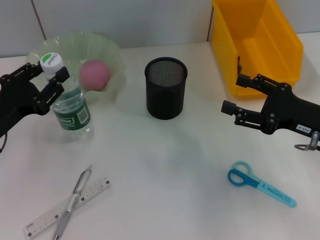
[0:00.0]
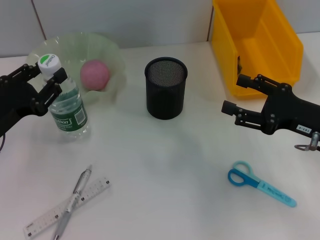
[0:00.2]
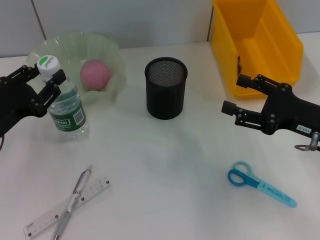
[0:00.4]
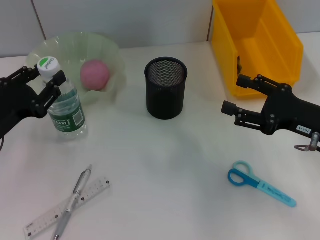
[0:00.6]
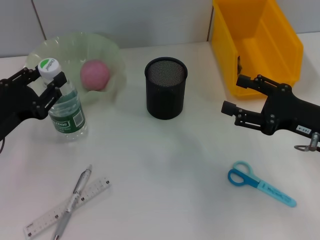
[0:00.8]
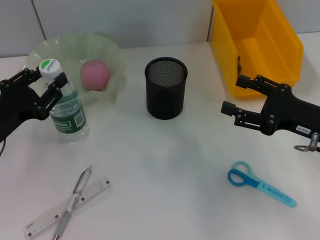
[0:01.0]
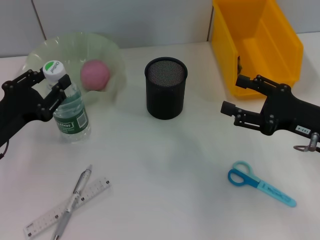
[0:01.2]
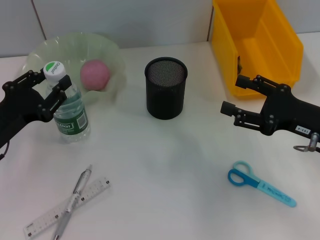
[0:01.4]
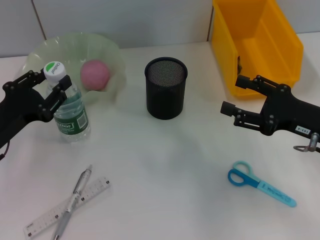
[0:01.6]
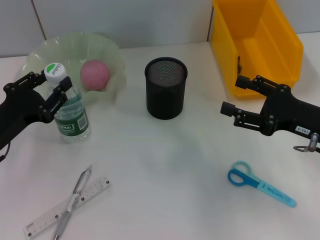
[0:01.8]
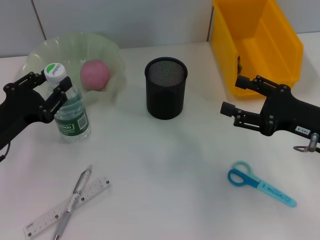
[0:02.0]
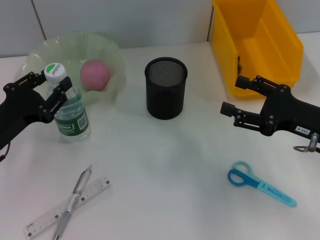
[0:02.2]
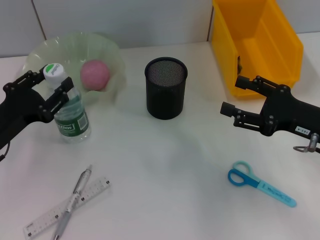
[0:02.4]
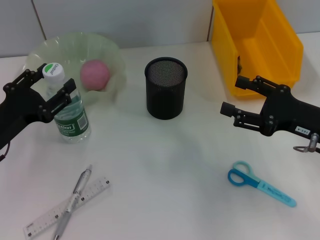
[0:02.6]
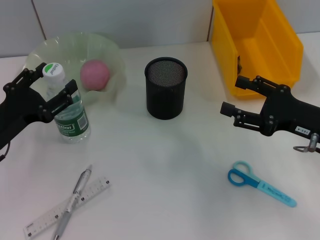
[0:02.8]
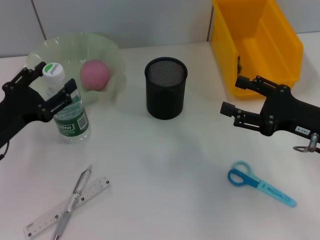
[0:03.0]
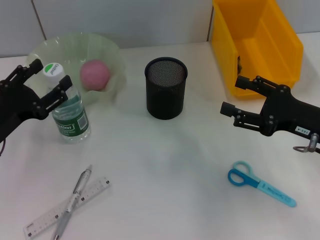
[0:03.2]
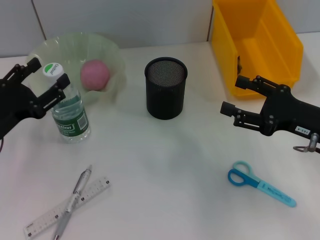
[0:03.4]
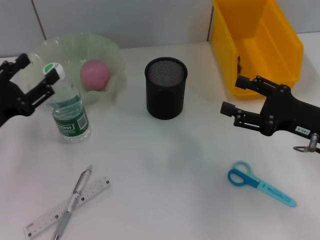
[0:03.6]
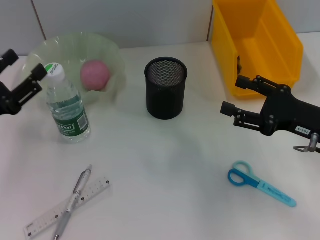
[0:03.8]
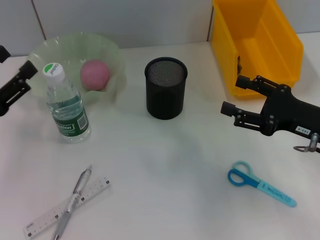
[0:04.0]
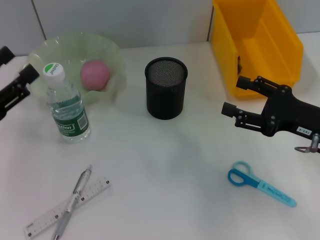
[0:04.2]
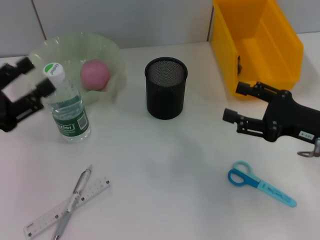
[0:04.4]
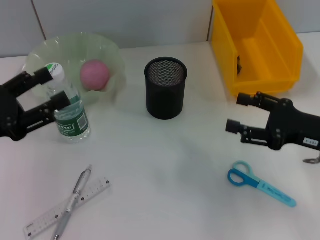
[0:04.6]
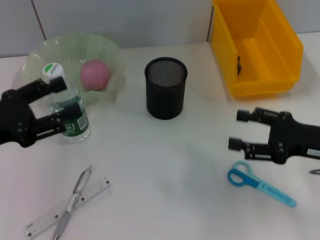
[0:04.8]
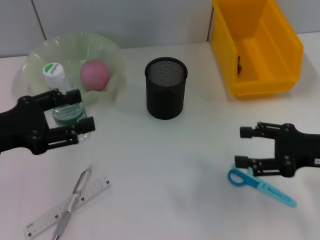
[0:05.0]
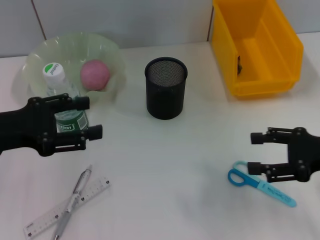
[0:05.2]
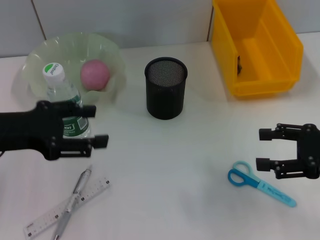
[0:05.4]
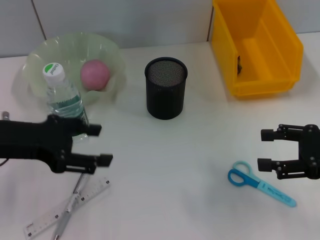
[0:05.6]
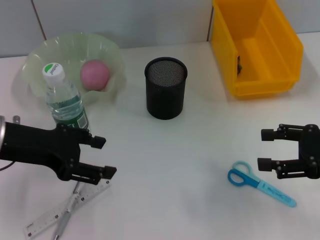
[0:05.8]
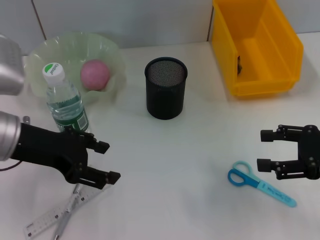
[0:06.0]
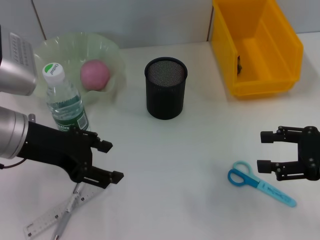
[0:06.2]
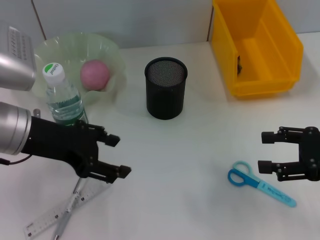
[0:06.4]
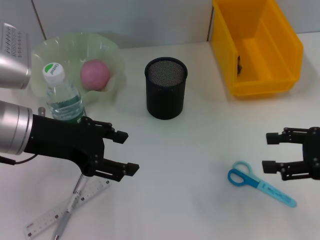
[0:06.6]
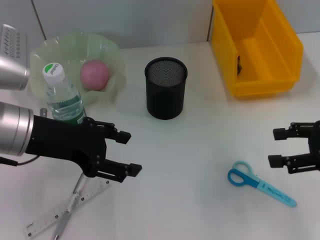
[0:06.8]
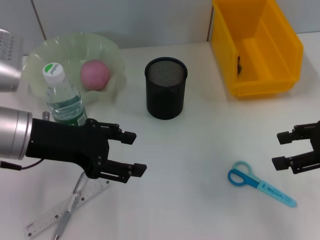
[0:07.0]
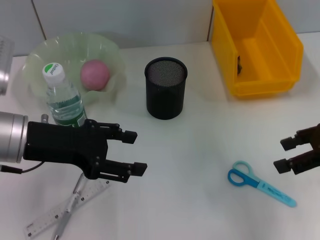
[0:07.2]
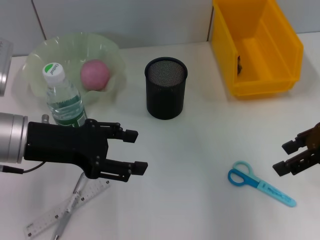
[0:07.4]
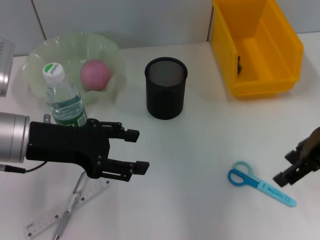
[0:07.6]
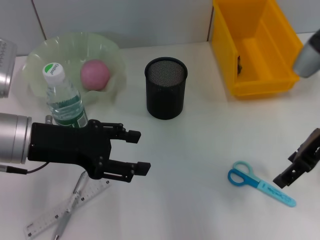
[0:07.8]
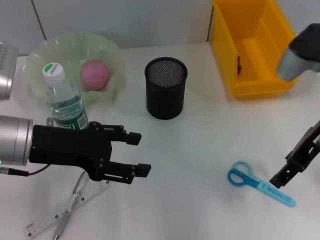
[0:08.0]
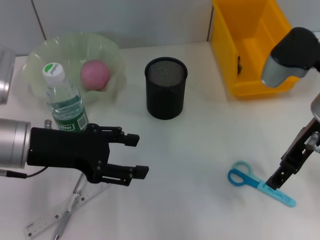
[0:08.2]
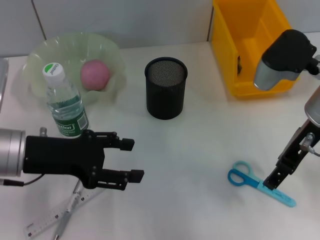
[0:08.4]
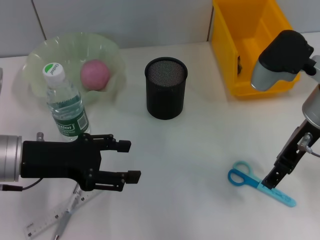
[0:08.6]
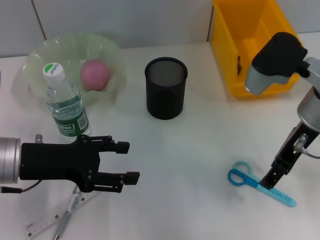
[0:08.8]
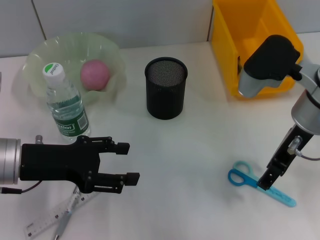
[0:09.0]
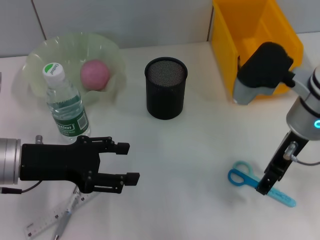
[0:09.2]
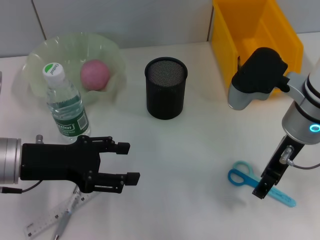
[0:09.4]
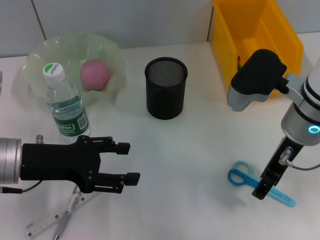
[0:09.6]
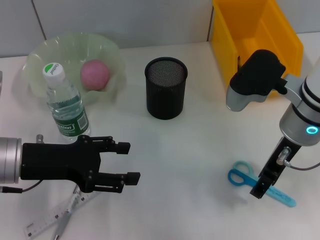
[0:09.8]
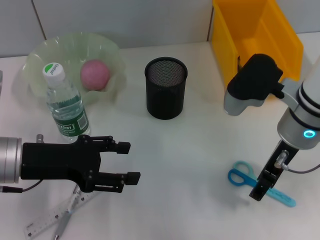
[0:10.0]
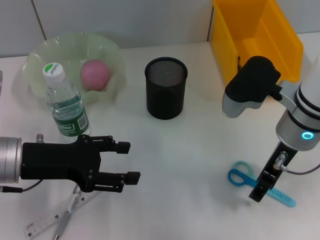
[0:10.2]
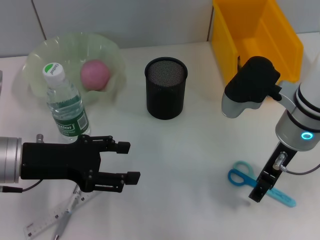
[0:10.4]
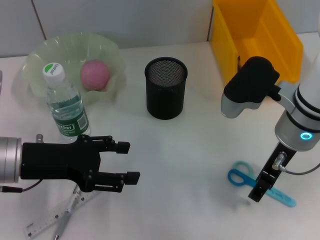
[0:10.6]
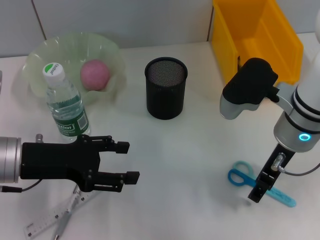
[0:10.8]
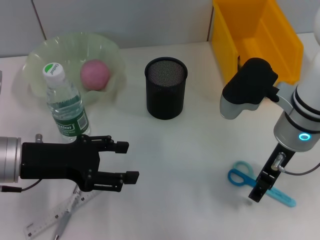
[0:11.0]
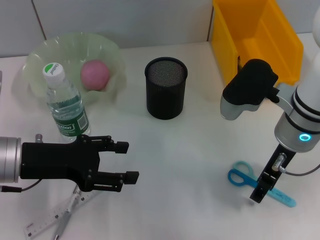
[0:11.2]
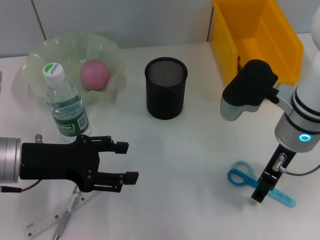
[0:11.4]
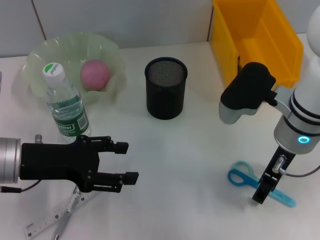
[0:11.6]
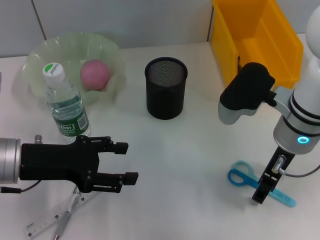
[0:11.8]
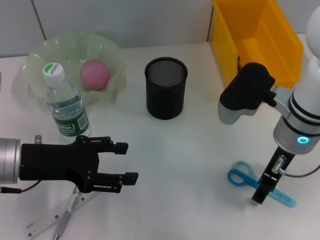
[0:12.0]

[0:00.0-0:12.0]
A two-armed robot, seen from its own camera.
Step, 0:00.0 to 0:03.2: Place the water bottle on the table with the left hand.
0:00.0 to 0:01.6: Both grippers stay about where they are.
0:01.6 to 0:03.0: The left gripper opens up.
0:03.0 to 0:04.4: The left gripper changes place by about 5 cm.
0:04.4 to 0:06.0: The left gripper heads to the right and upward, covering approximately 10 cm. The right gripper ends up approximately 5 cm from where it was.
0:06.0 to 0:07.6: The right gripper goes about 10 cm upward, forward and to the left.
0:07.6 to 0:09.0: The right gripper heads to the left, covering roughly 10 cm.
0:09.0 to 0:10.4: The grippers make only small movements.
0:10.4 to 0:12.0: Both grippers stay about where they are.

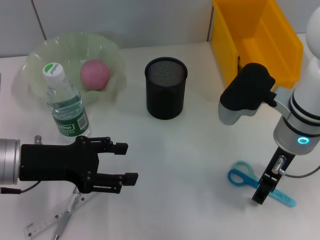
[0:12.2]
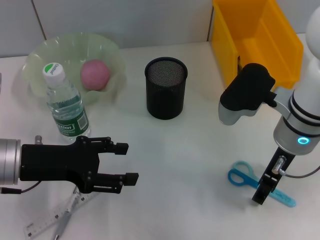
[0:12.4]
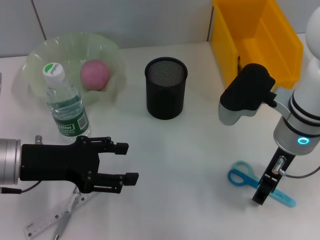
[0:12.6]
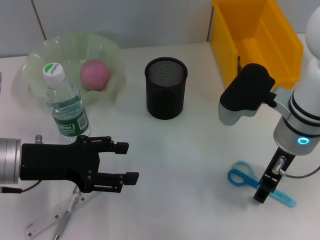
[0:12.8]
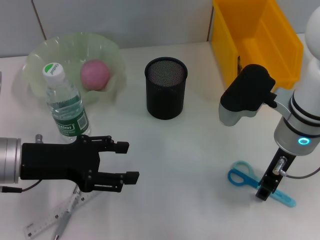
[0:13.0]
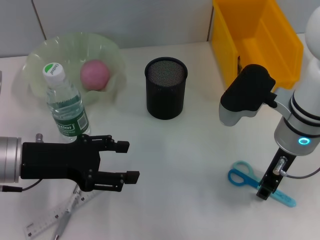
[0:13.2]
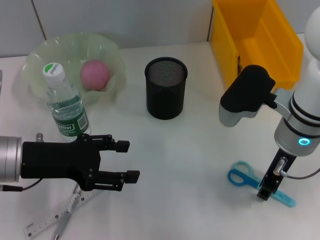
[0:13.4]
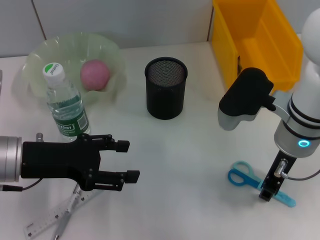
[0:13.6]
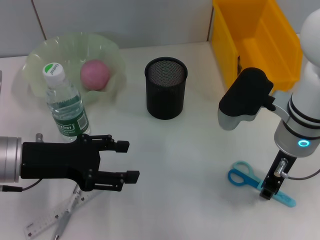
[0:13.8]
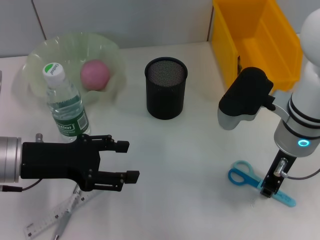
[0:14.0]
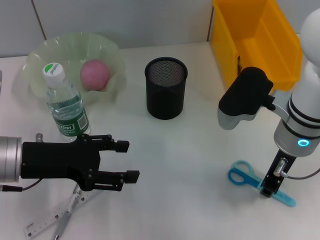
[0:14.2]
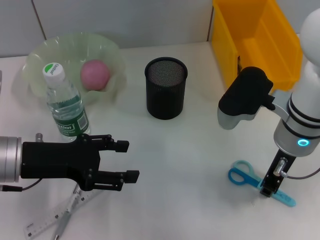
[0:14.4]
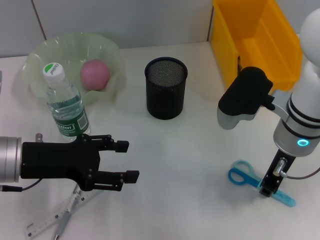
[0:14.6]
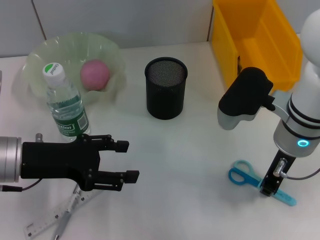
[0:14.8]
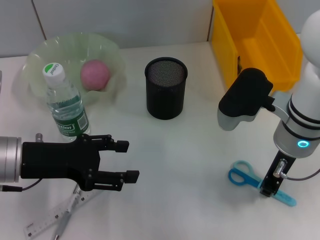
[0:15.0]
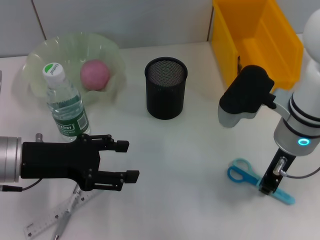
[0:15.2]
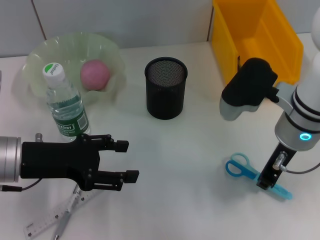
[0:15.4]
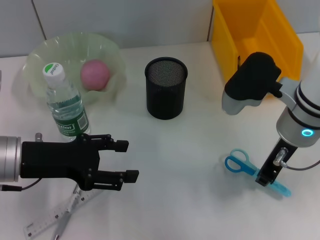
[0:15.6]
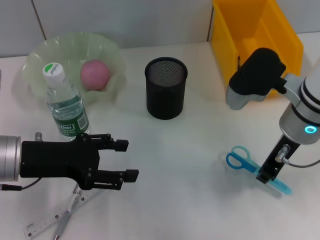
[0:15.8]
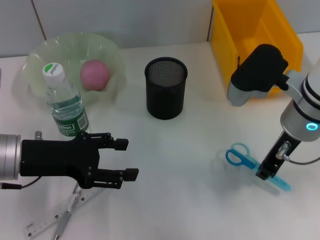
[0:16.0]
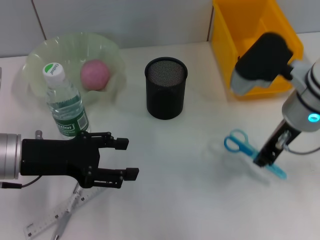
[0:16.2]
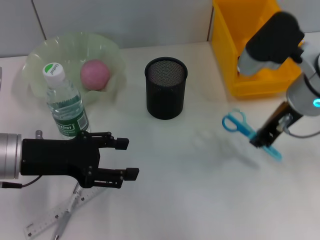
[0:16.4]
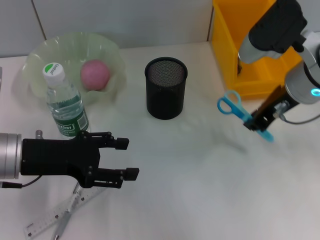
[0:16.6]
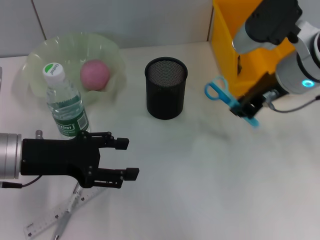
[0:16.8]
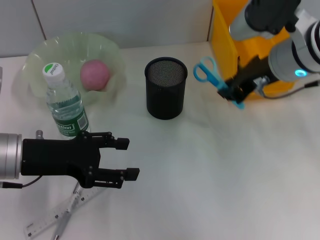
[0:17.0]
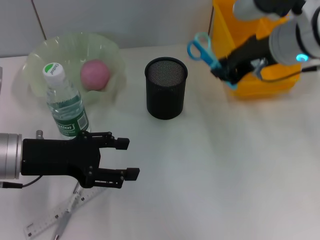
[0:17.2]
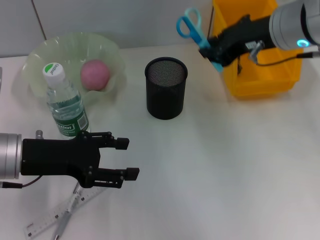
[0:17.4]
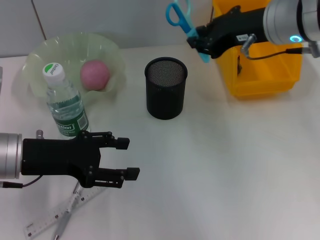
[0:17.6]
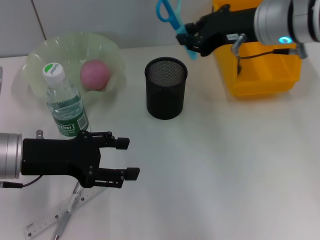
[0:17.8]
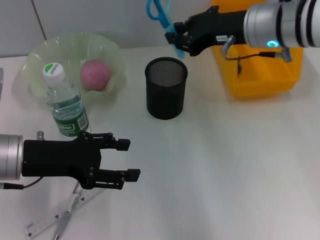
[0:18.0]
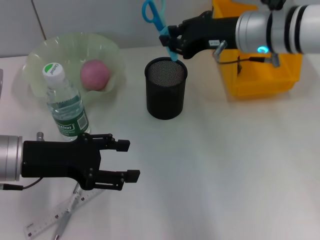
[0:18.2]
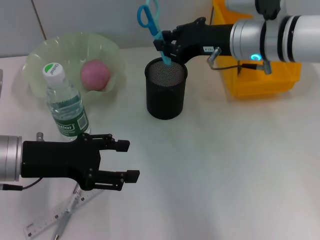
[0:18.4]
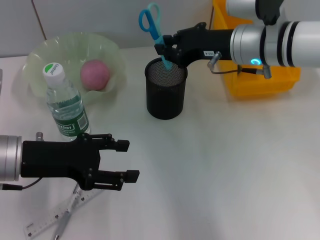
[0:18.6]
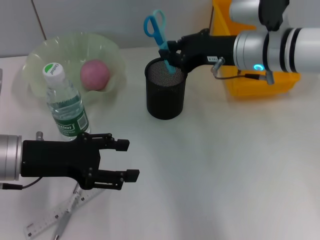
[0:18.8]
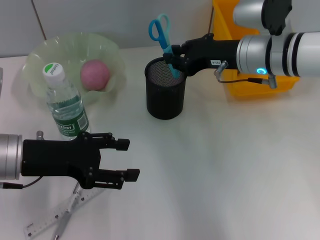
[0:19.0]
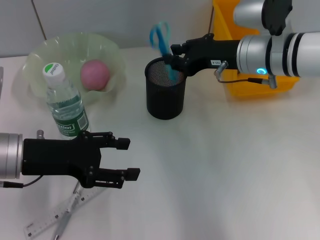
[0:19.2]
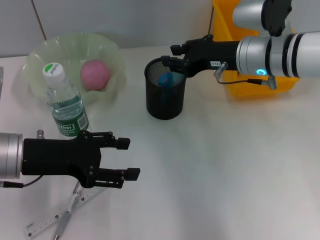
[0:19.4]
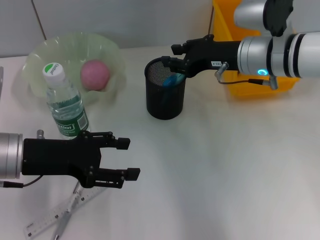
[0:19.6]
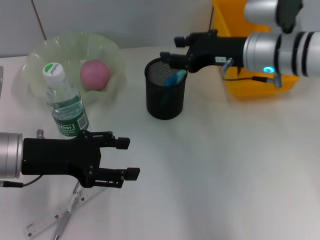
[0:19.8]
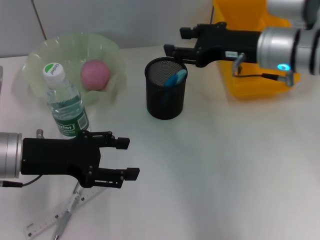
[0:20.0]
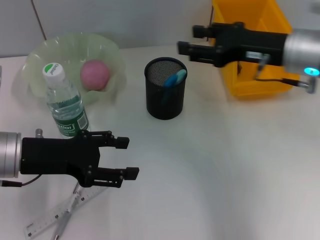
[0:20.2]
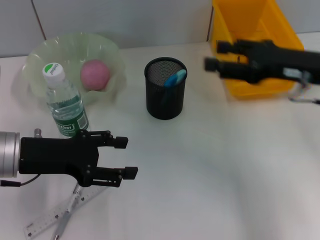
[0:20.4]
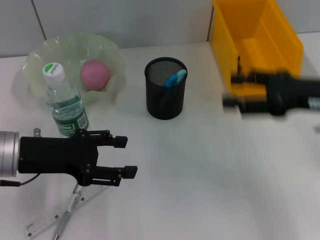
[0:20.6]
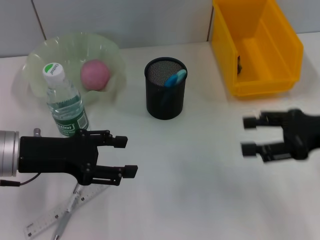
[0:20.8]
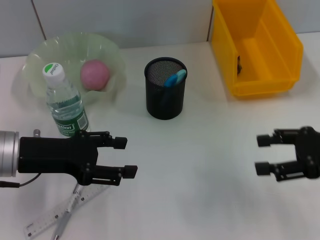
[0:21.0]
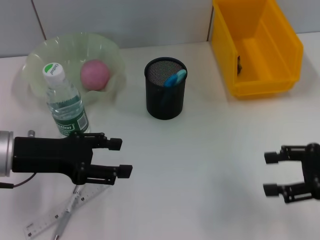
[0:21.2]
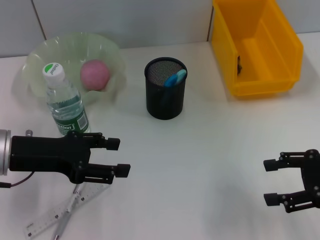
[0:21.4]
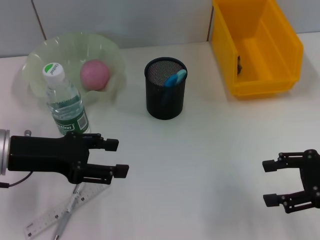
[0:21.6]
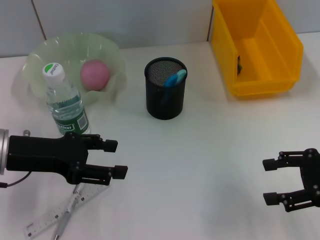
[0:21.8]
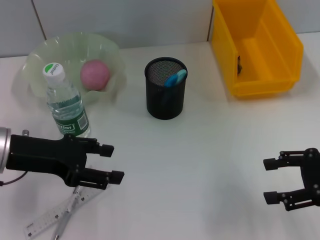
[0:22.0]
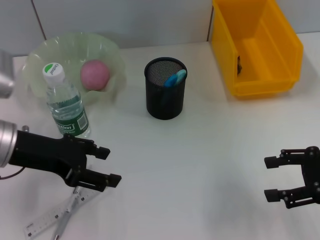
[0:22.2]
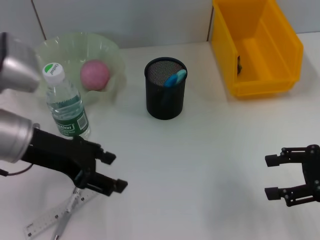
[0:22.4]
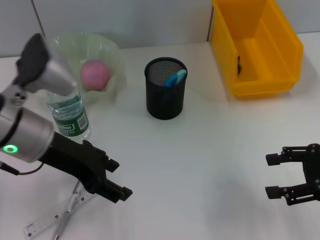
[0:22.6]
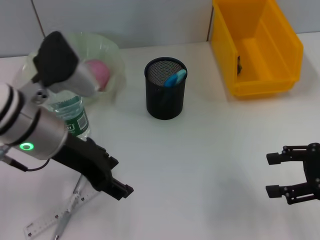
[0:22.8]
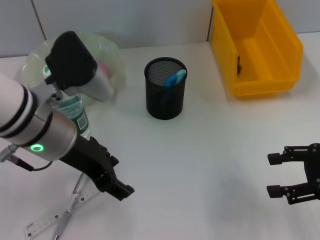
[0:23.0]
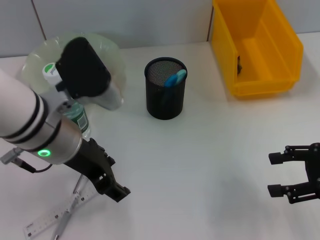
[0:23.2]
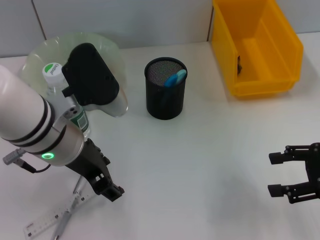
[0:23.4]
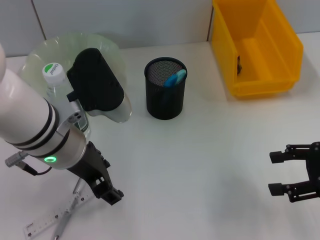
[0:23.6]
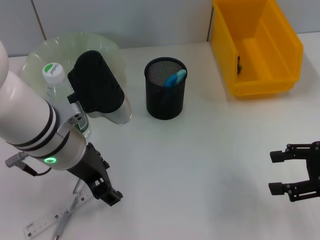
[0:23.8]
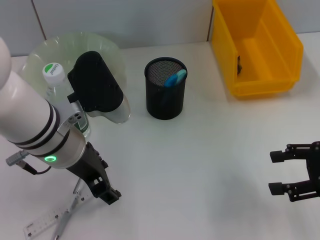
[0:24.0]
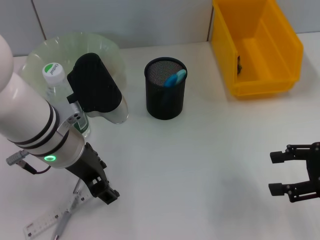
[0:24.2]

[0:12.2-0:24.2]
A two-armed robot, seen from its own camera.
Step, 0:12.2 to 0:15.0: Grab the blue scissors with the right hand.
Step, 0:15.2 to 0:19.6: Place the blue scissors into the pen holder with the right hand.
0:12.2 to 0:13.8: The right gripper closes.
0:13.8 to 0:15.2: The right gripper closes up.
0:15.2 to 0:16.6: The right gripper shifts by roughly 5 cm.
0:16.6 to 0:18.2: The right gripper shifts roughly 5 cm forward.
0:18.2 to 0:19.8: The grippers stay close to where they were, moving slightly.
0:19.8 to 0:21.2: The right gripper heads to the right and backward, covering approximately 20 cm, and opens up.
0:21.2 to 0:22.6: The left gripper heads to the right, covering approximately 5 cm.
